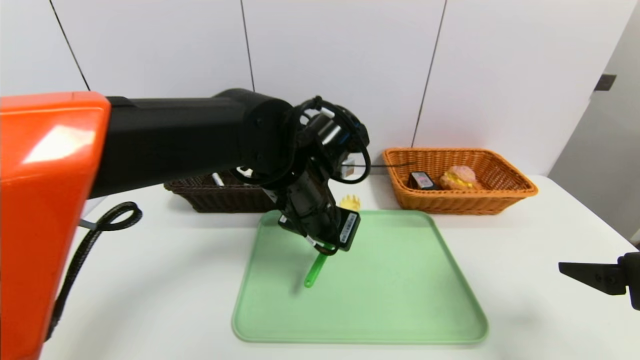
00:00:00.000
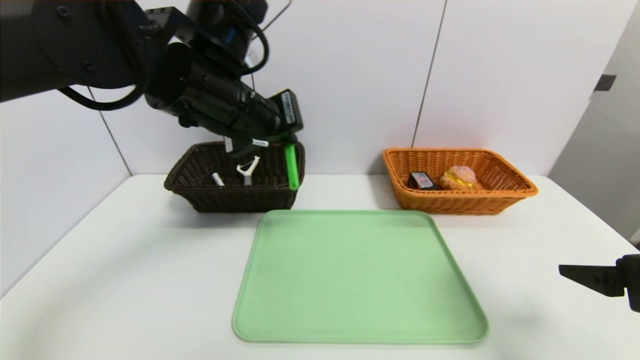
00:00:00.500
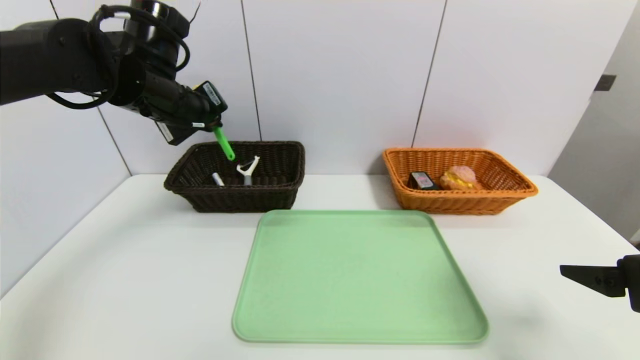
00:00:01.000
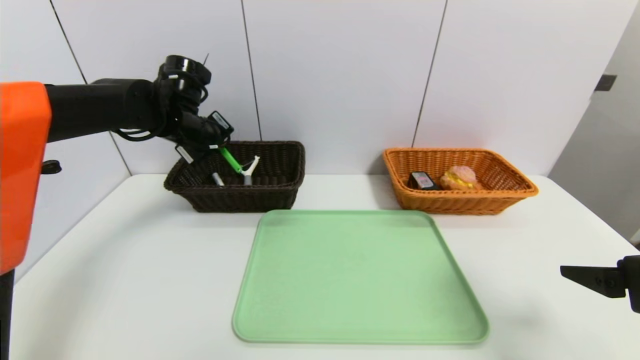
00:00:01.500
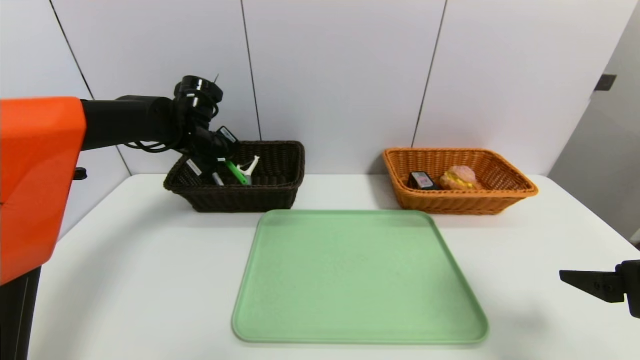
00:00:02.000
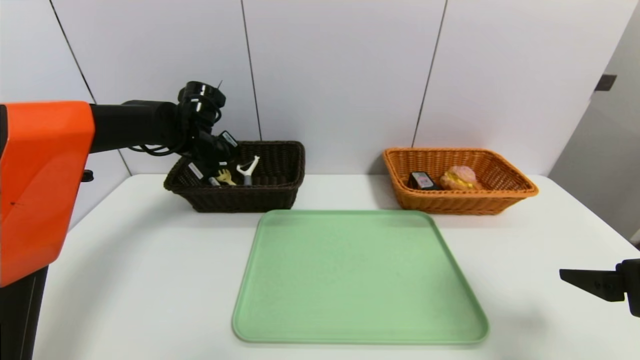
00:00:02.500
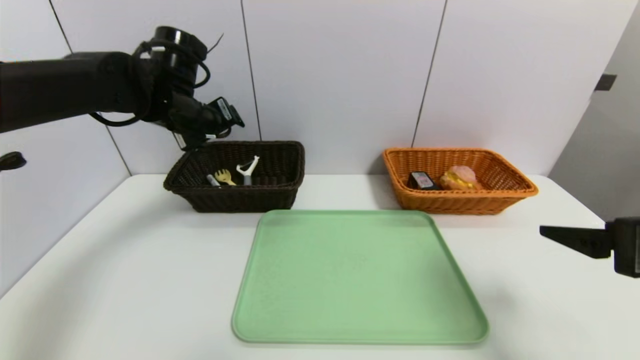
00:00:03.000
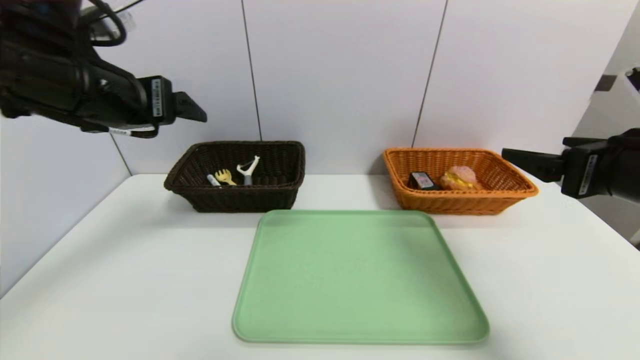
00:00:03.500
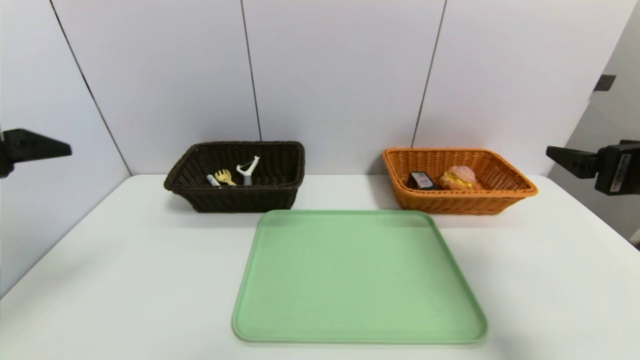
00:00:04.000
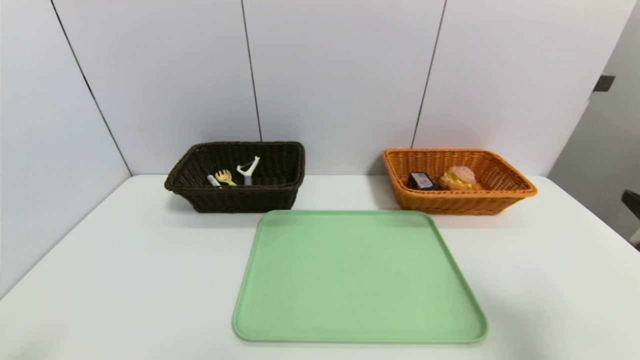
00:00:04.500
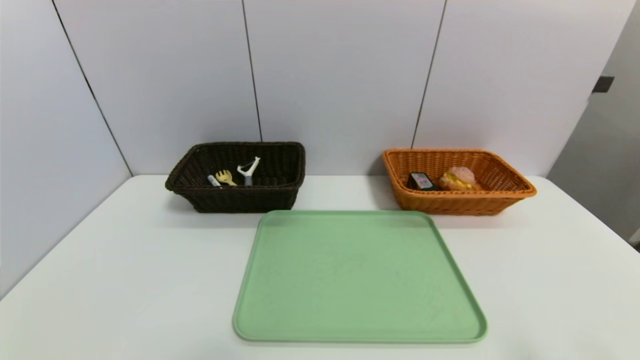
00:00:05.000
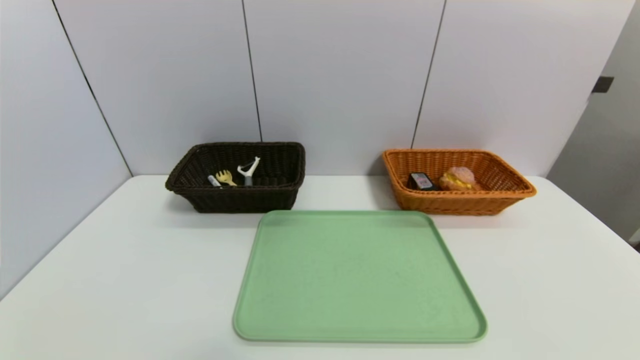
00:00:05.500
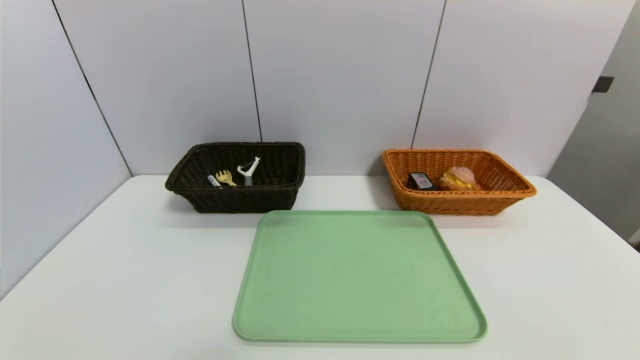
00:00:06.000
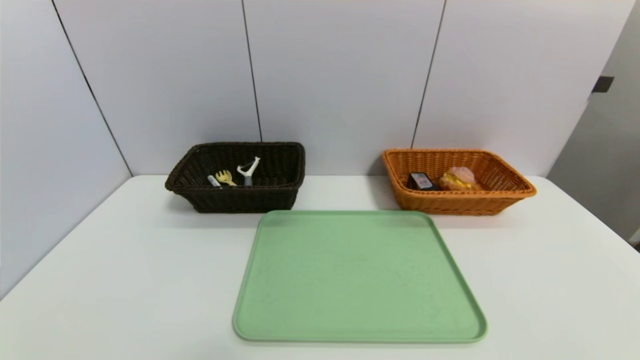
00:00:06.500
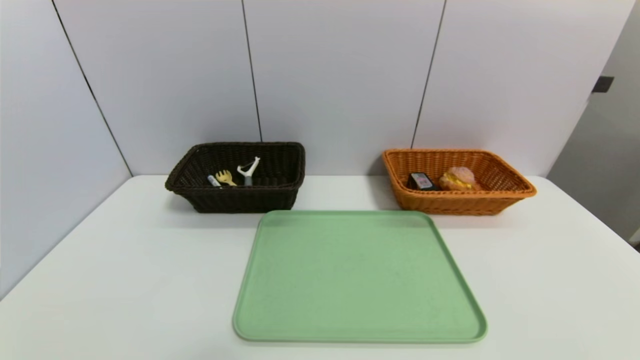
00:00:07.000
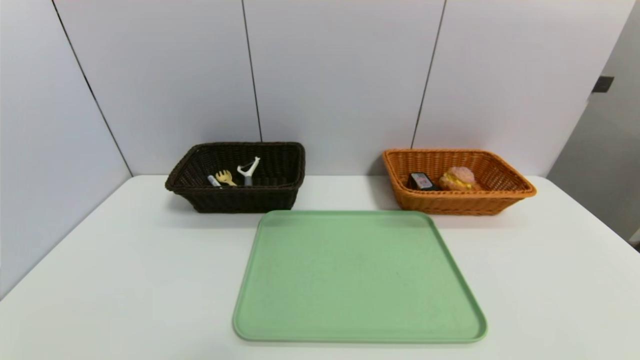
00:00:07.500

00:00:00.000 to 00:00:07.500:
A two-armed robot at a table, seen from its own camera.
Task of the whole recording: place the food in the right basket with the right gripper, and place the non food items in the left basket with the left gripper.
Step, 00:00:00.000 to 00:00:03.000: Grasp the back scratcher and put it in the left basket.
00:00:00.000 to 00:00:02.000: The left gripper is displaced to the left and forward by about 25 cm.
00:00:02.000 to 00:00:04.000: The right gripper moves forward, roughly 5 cm. Meanwhile the left gripper is displaced backward by roughly 30 cm, and opens up.
00:00:04.000 to 00:00:05.500: Both grippers move backward and downward, roughly 25 cm.
